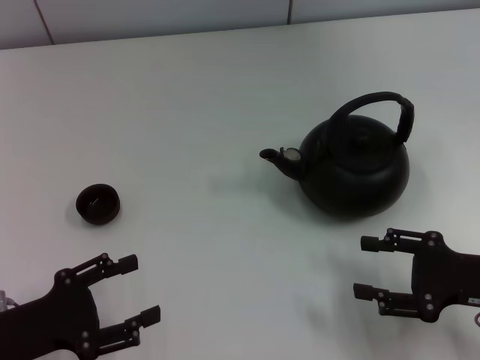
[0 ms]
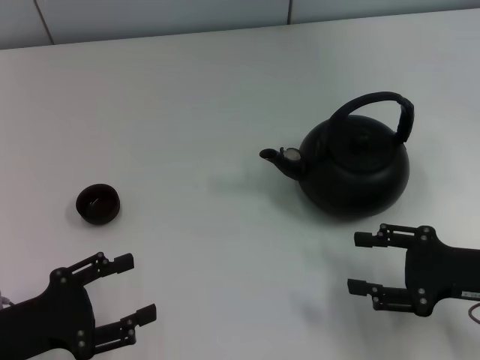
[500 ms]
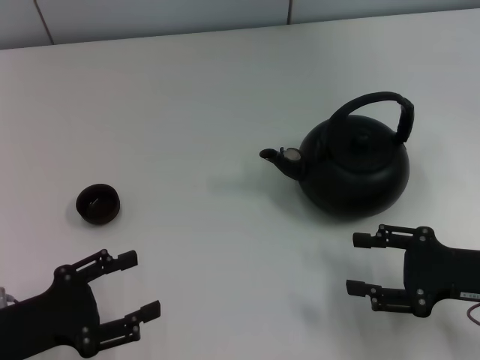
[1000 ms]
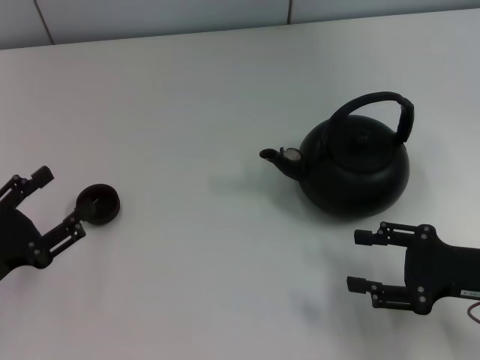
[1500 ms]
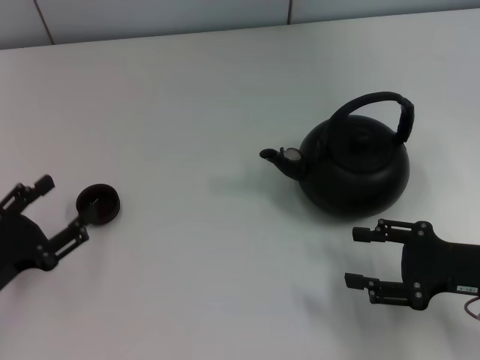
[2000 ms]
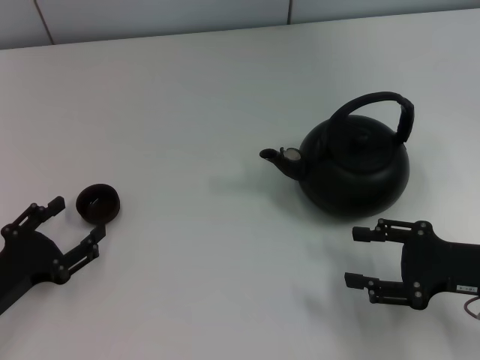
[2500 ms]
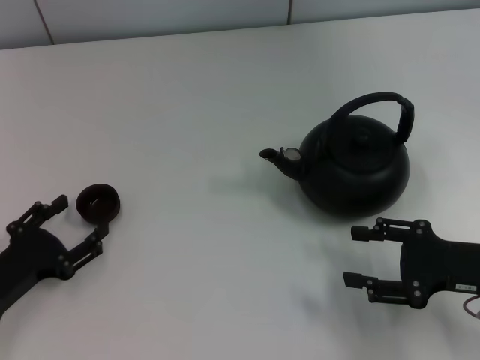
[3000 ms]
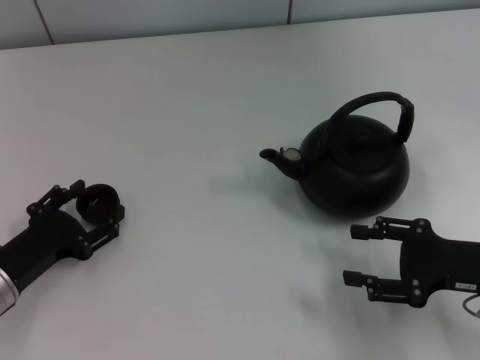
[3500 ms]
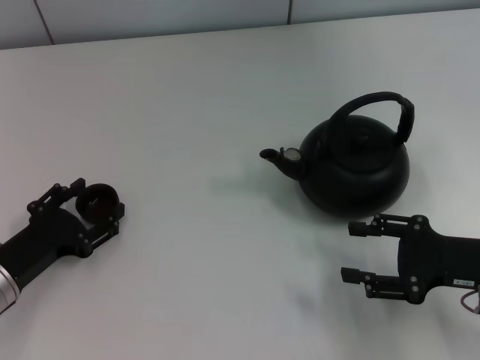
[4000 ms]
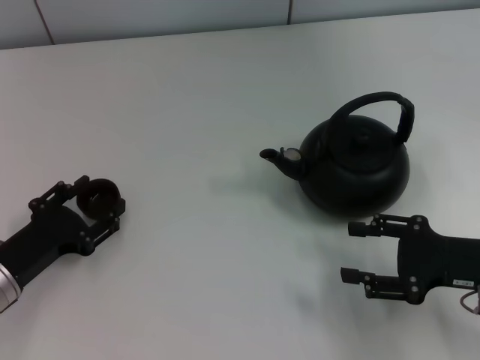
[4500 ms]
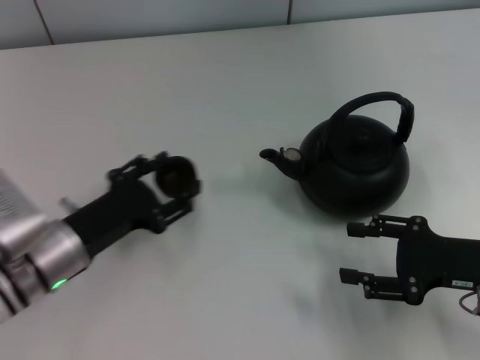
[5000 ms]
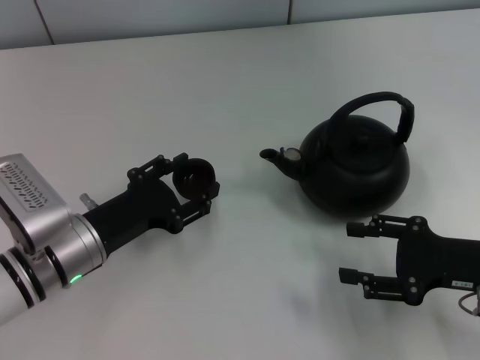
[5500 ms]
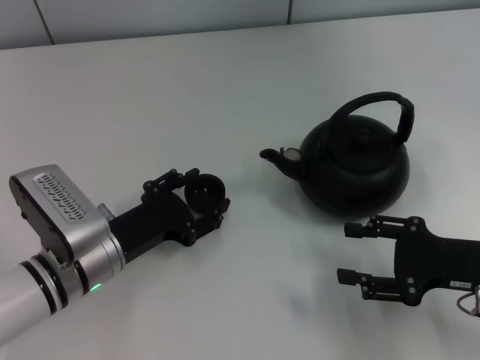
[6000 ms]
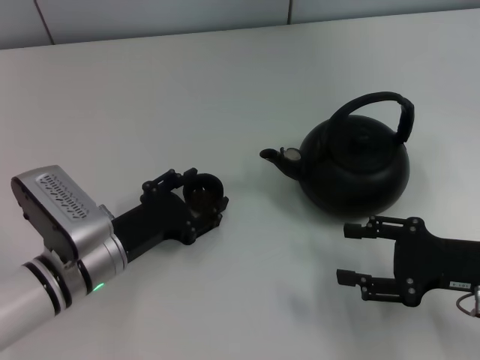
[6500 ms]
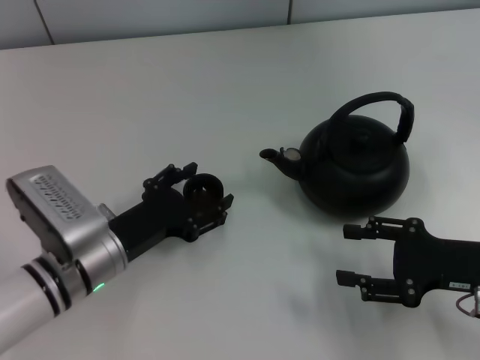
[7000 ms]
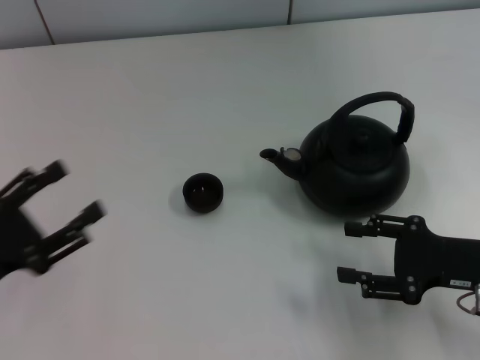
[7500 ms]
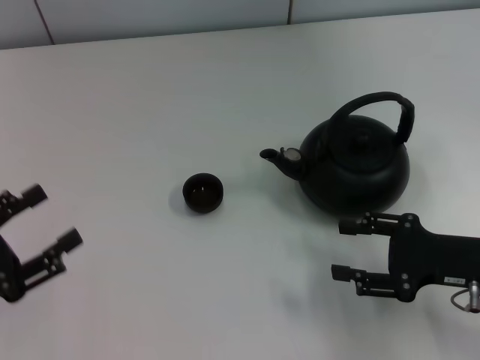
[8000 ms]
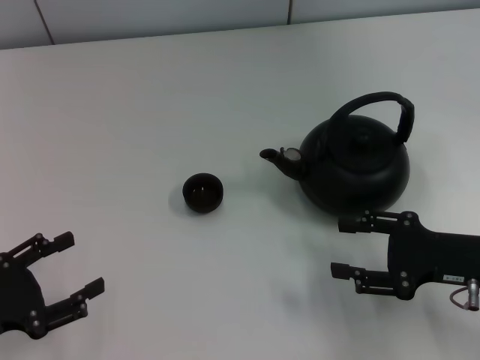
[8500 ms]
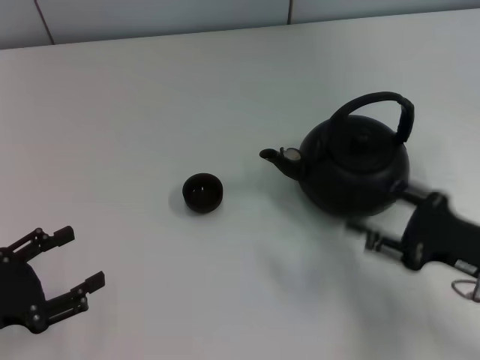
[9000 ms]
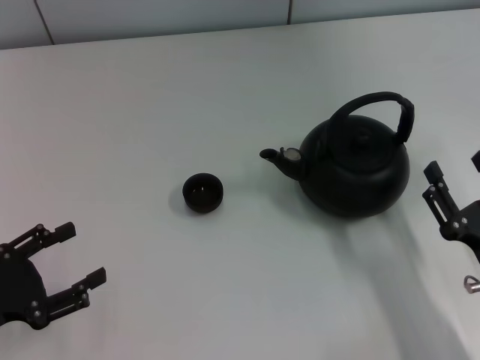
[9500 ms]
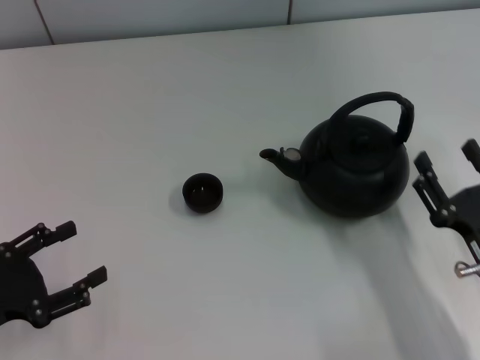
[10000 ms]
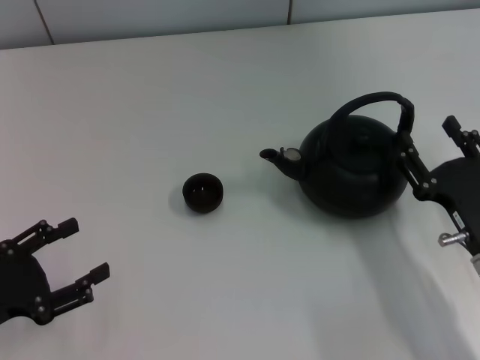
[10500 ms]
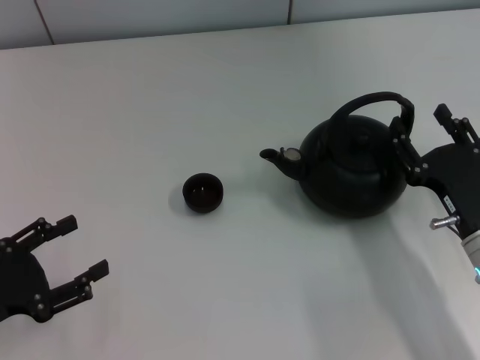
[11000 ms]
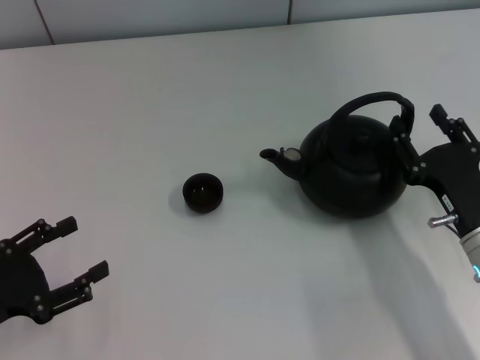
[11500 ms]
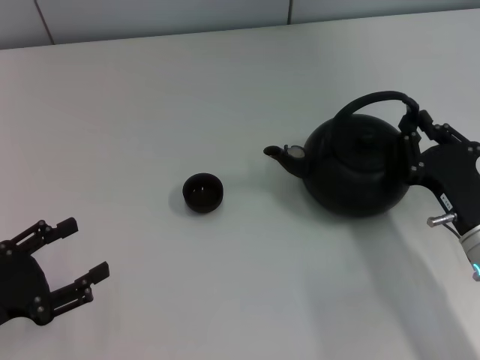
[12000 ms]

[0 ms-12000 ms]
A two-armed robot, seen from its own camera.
Task of the whole recording: Grasp the handle of the teapot with one hand and pour tea into the teacup.
Step, 0 ms to 4500 ms: Pick up the teacup with the left gripper.
Step, 5000 ms to 7500 ms: Place the teacup in the center of view with the left gripper.
2000 ms to 4000 ms: The left gripper shifts by roughly 5 cm.
4000 ms to 6000 ms: The left gripper heads to the right, covering approximately 10 cm.
6000 ms to 8000 ms: The left gripper travels to the left and backward by approximately 15 cm.
8000 ms to 10000 ms: The right gripper shifts approximately 5 cm backward.
10000 ms to 12000 ms: The right gripper goes roughly 5 cm forward, and closes up.

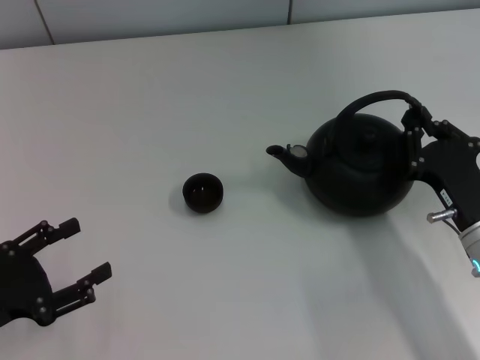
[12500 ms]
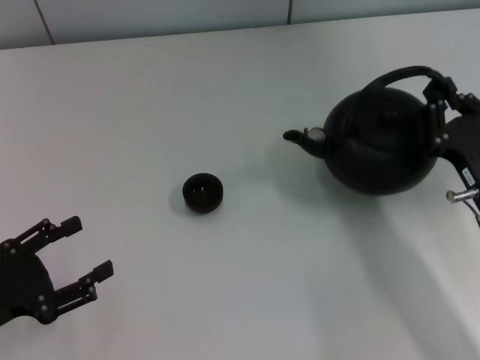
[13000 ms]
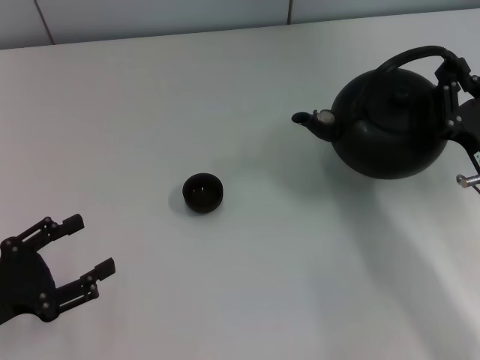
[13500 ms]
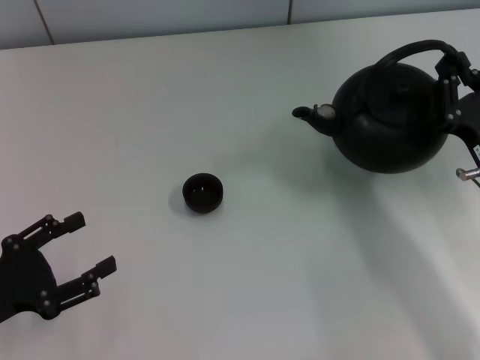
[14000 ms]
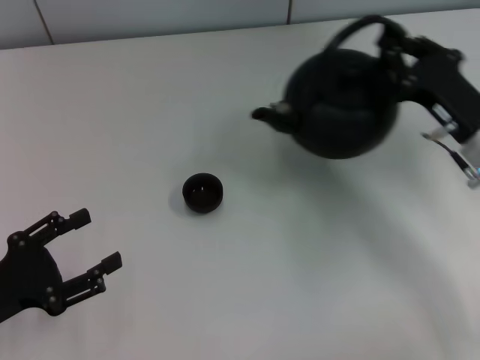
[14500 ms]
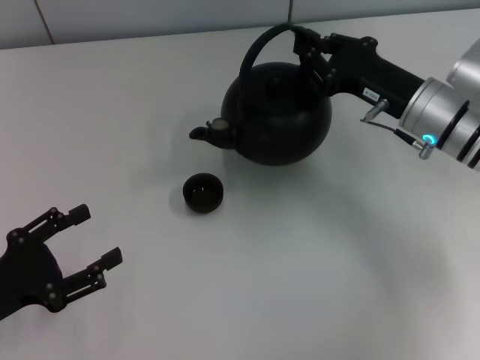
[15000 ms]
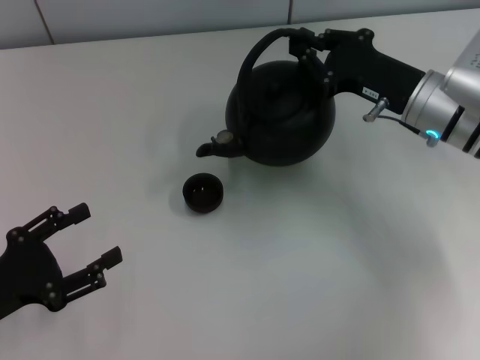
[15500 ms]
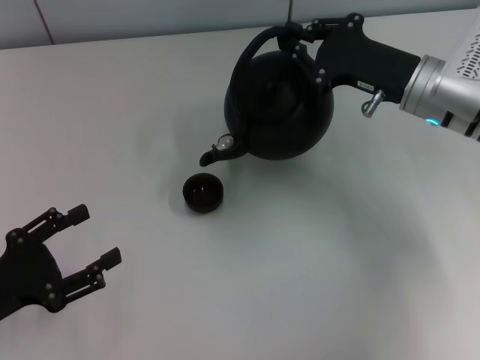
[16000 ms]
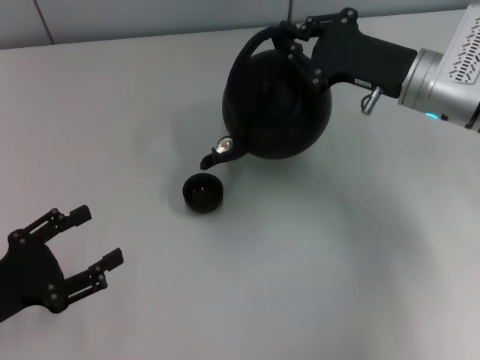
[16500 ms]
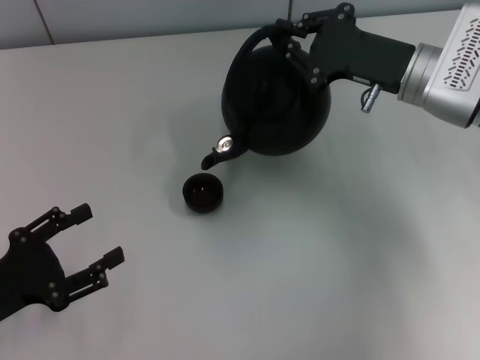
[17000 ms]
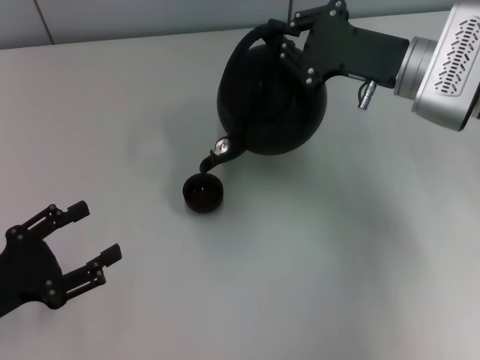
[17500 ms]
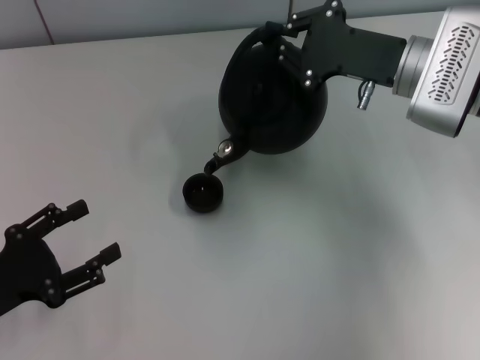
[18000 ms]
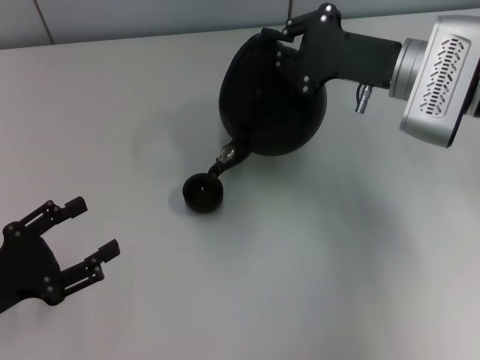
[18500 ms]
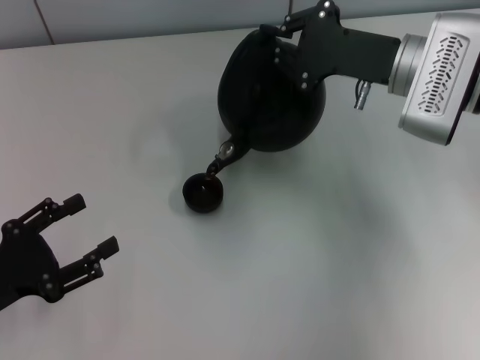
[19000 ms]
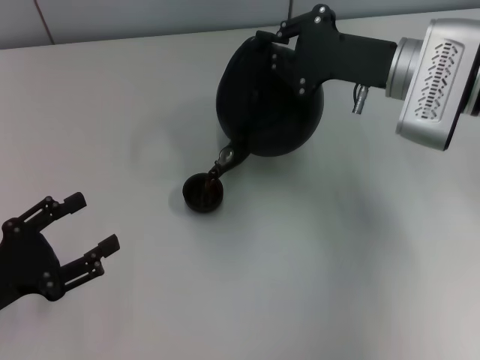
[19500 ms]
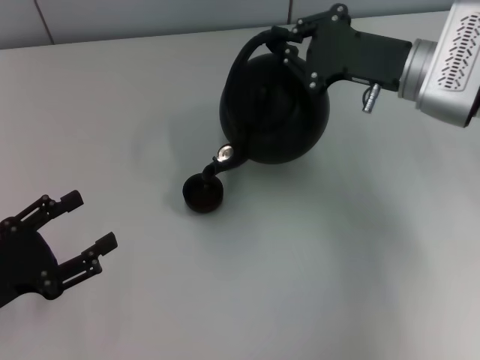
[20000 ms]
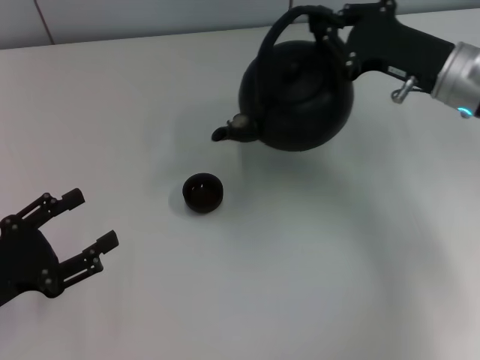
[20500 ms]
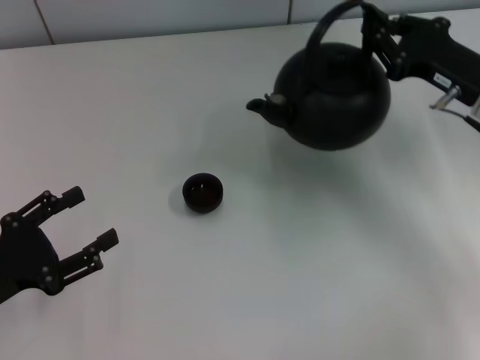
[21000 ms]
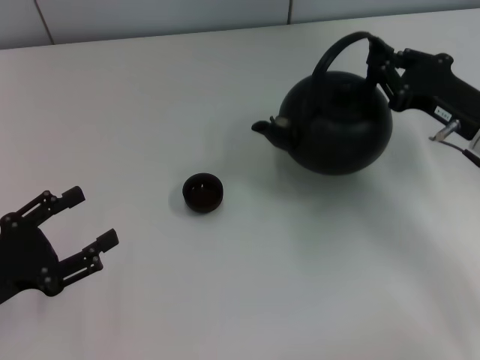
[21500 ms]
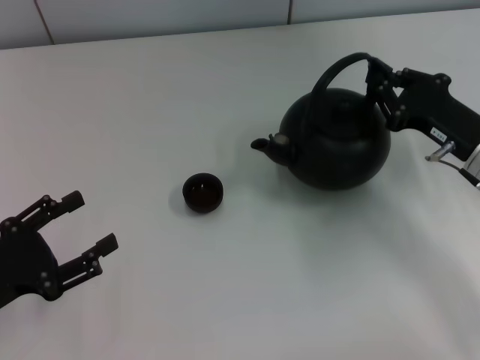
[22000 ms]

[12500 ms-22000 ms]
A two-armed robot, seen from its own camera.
Task of the whole recording: Grasp the handle of the teapot with one hand and pour tea into the teacup.
12500 ms to 14500 ms: The right gripper is displaced forward and upward by approximately 10 cm.
14500 ms to 16500 ms: The right gripper goes some 5 cm forward.
16500 ms to 18000 ms: There are only small adjustments of the grippers.
18000 ms to 20000 ms: The grippers stay close to where they were, moving slightly.
20000 ms to 22000 ms: The right gripper heads backward, downward and to the right, covering approximately 10 cm.

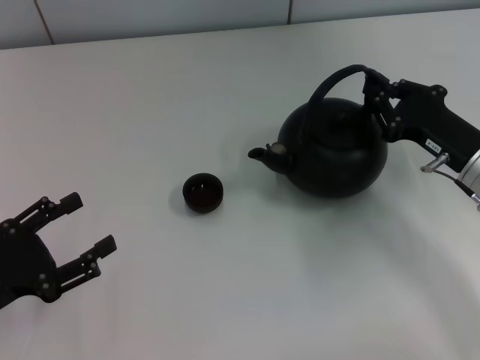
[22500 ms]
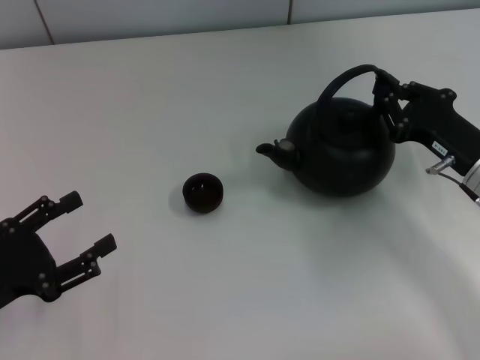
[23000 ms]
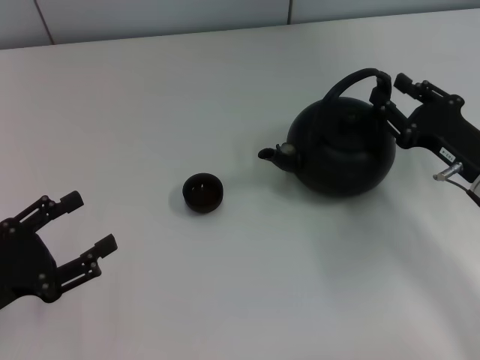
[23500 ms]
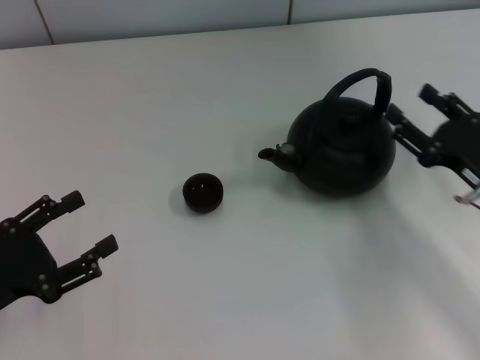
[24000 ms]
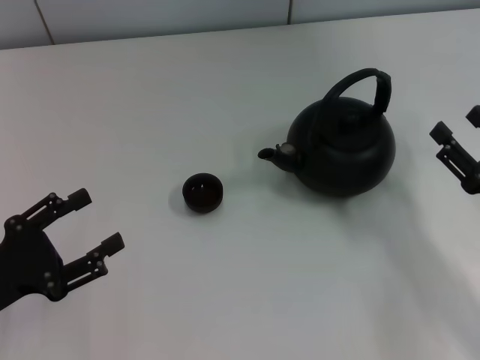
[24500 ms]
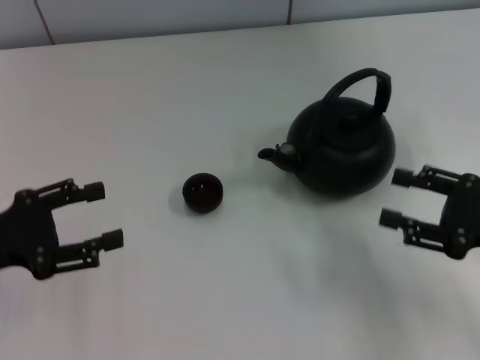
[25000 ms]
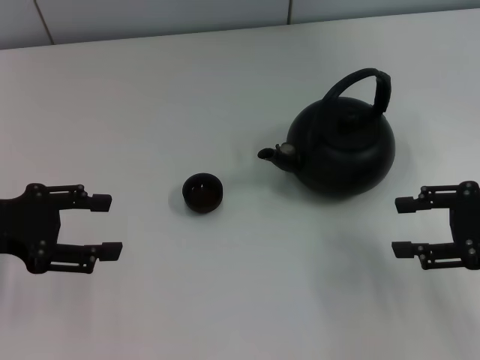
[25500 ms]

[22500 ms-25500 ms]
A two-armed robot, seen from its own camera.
Task of the whole recording: Grasp the handle of the teapot with one hand and pour tea into the teacup.
22500 ms to 24000 ms: The right gripper moves roughly 5 cm, and opens.
24000 ms to 25500 ms: The left gripper is displaced forward and upward by about 10 cm; the right gripper goes approximately 5 cm upward.
